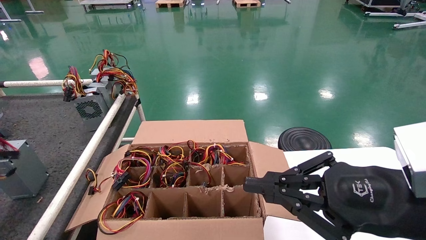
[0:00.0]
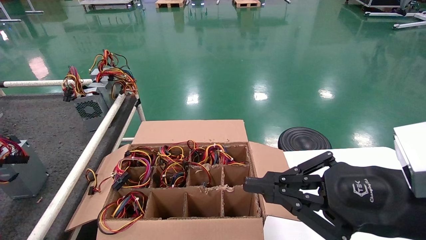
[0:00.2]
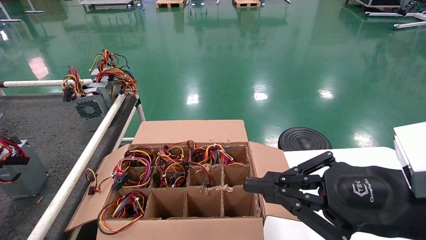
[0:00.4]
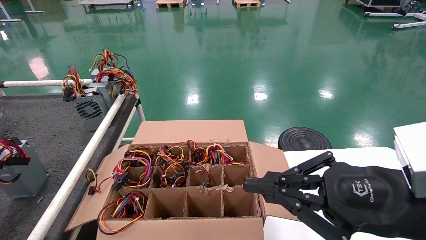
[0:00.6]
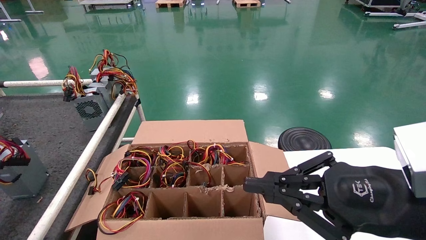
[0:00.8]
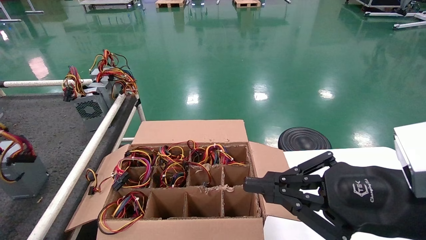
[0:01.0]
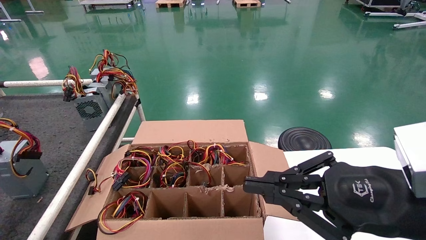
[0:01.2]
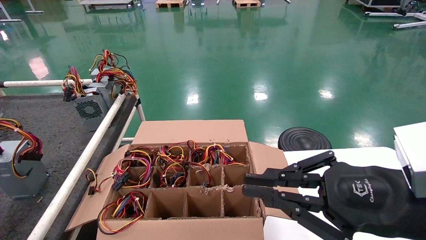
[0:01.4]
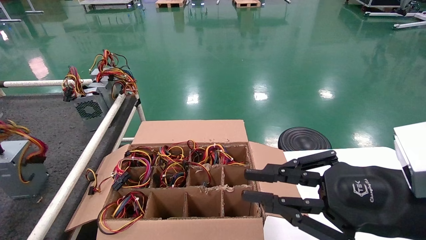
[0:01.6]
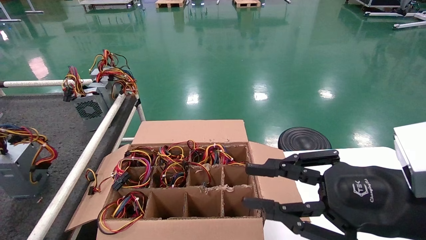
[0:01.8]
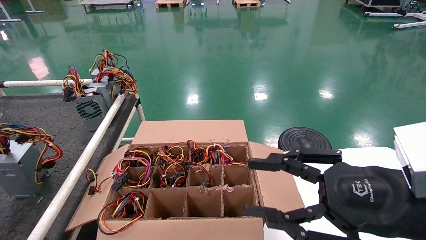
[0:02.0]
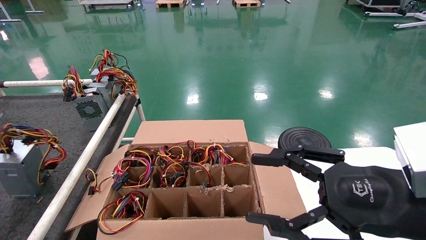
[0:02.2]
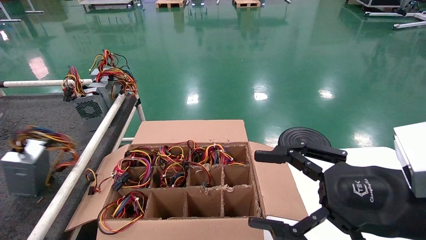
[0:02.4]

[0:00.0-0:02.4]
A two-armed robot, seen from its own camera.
0:00.0 to 0:01.2: The left gripper opens its fingers.
0:01.2 to 0:02.4: The right gripper opens up.
